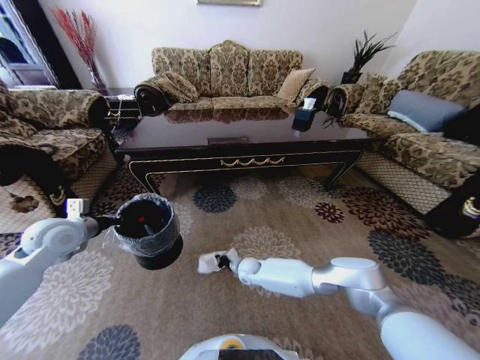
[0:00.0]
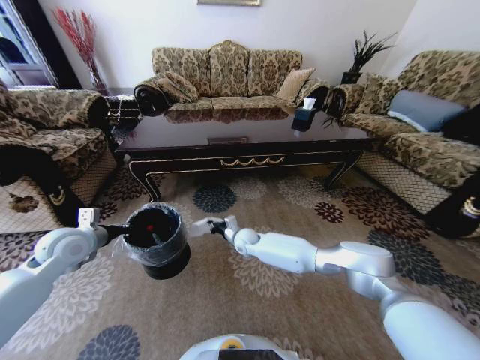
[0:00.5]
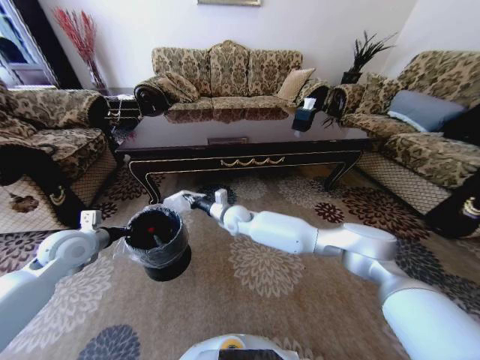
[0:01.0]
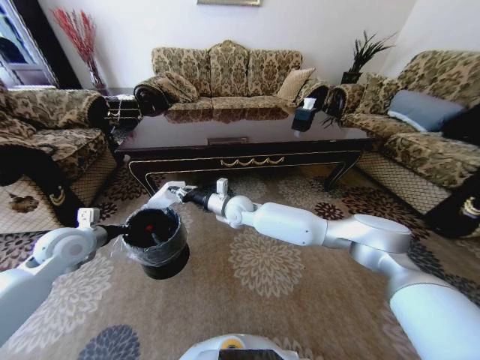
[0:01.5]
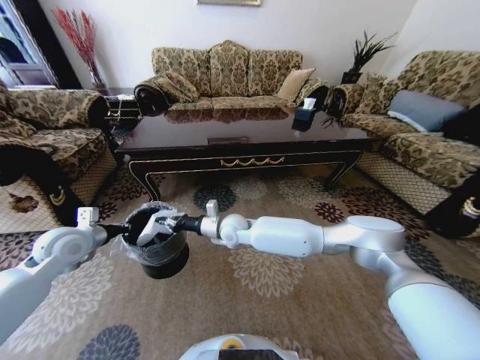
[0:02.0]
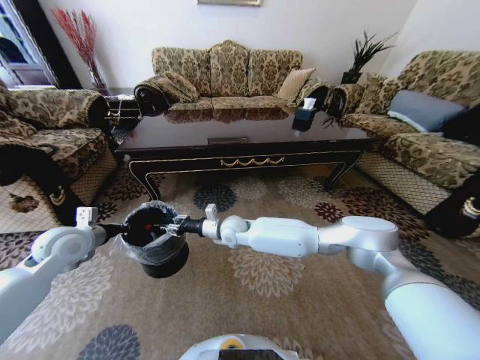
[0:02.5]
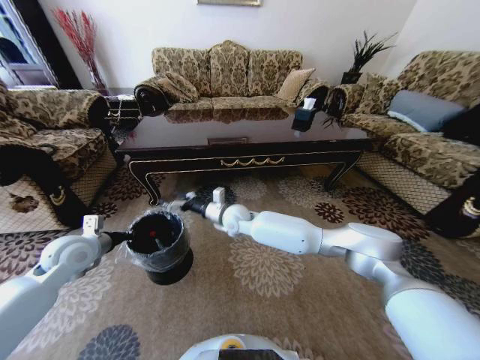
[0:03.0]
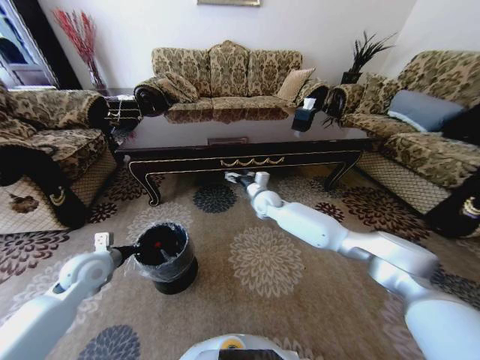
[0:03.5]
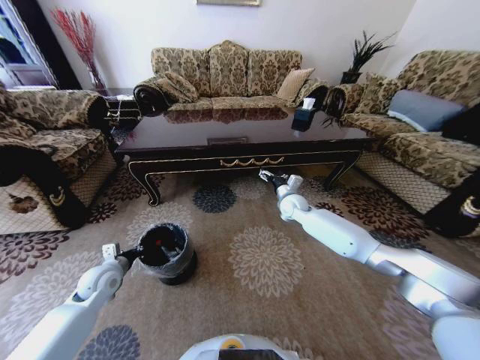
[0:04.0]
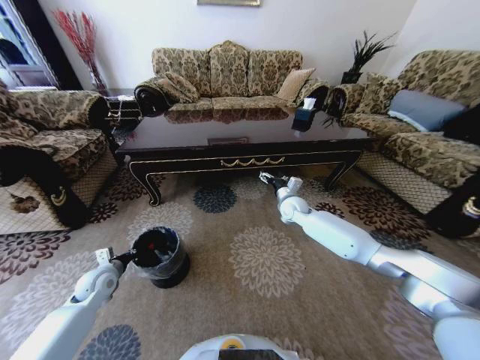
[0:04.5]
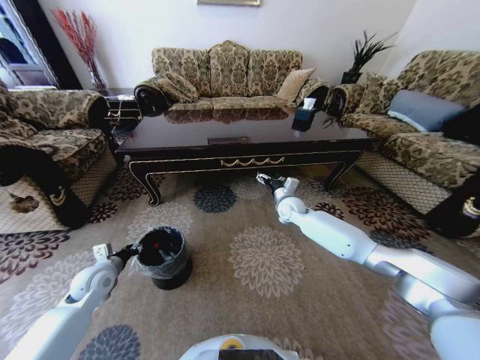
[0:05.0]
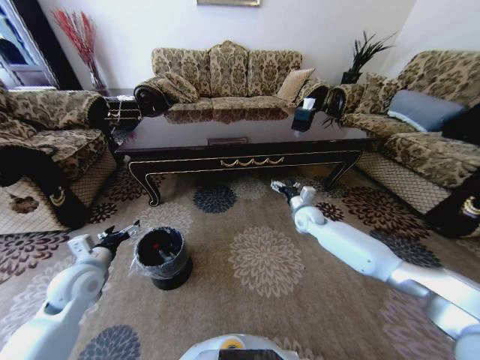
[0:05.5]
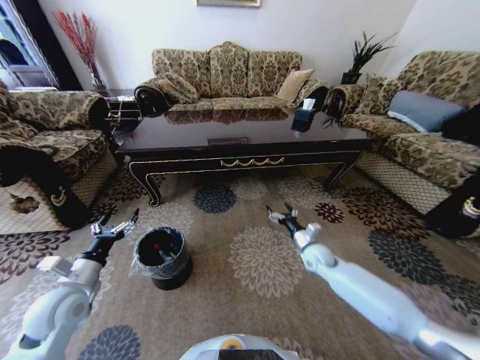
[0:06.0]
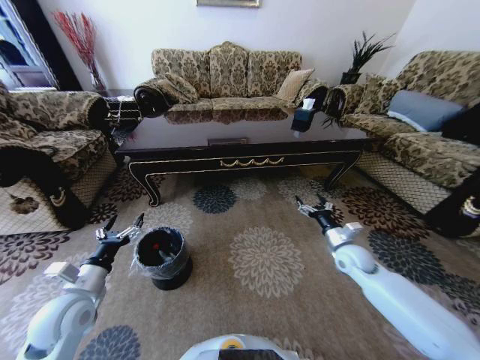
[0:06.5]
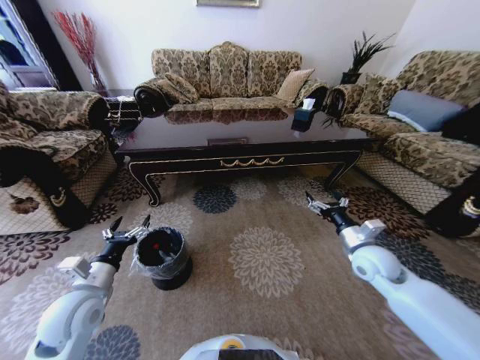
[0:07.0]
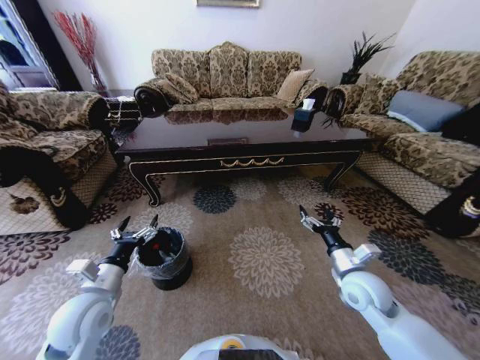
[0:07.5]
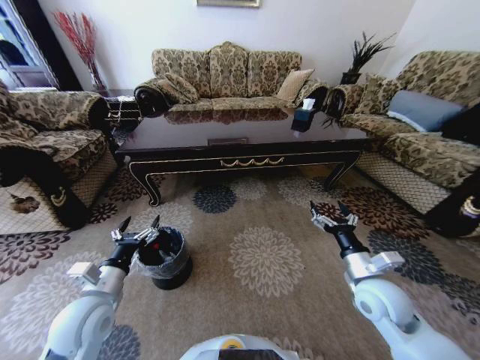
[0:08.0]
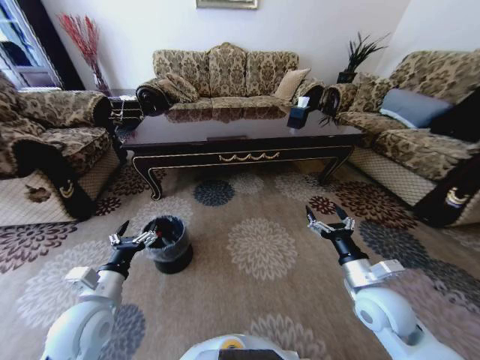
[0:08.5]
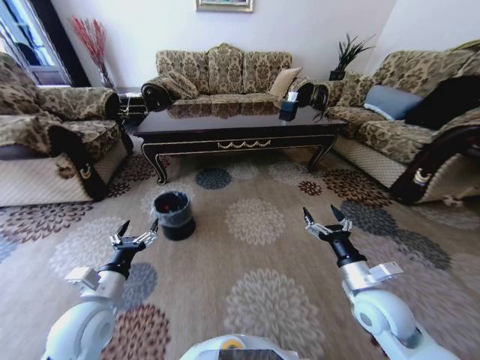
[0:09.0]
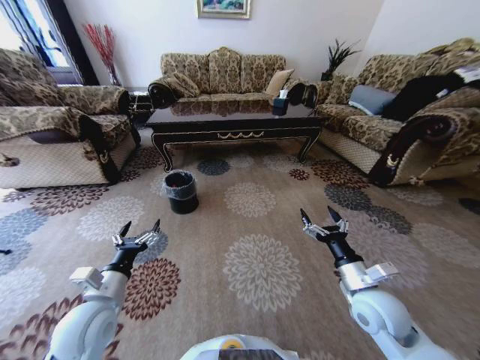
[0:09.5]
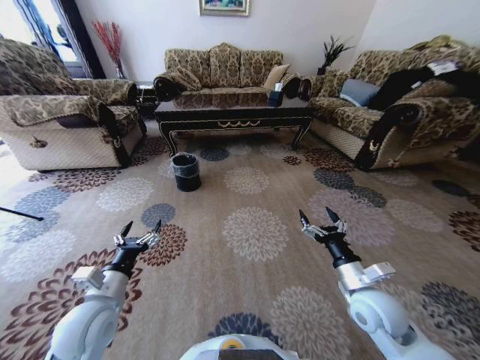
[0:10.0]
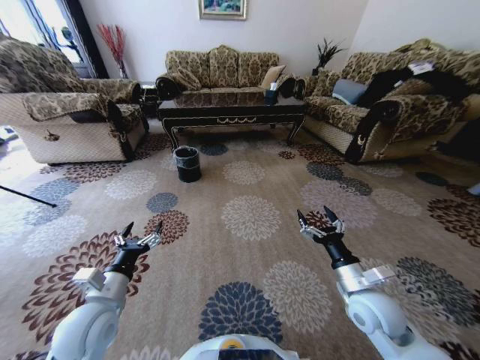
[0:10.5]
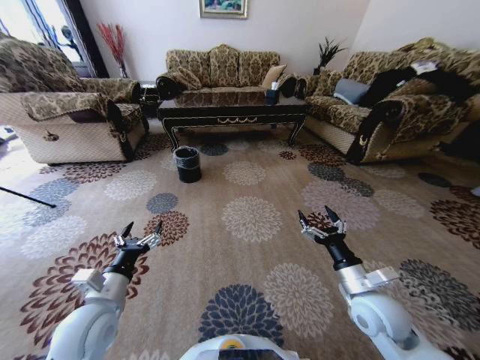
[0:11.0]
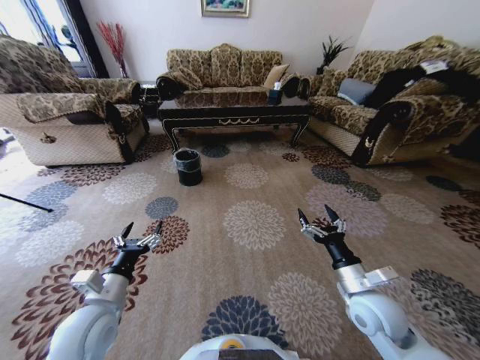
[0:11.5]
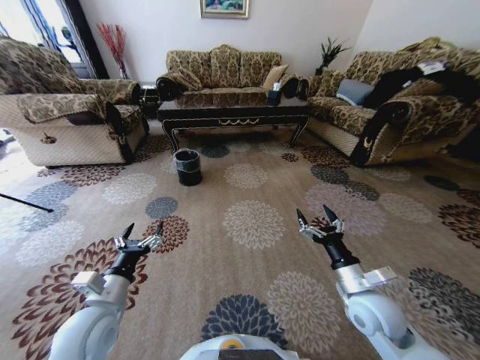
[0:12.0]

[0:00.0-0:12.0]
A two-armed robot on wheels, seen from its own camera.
Task of the whole recording: Move to the front of the table and pick up the trash from the floor, then place it into the trash bin.
0:00.0 to 0:02.0: The right gripper heads upward, covering roughly 25 cm.
0:02.0 to 0:04.0: The right gripper goes about 25 cm to the right and forward, and opens up; the left gripper goes about 15 cm downward.
0:04.0 to 0:06.0: The right gripper travels backward, downward and to the right by some 20 cm, while the left gripper goes roughly 10 cm backward and upward, and opens its fingers.
0:06.0 to 0:08.0: The right gripper is displaced backward and upward by some 20 cm, while the left gripper shifts approximately 10 cm to the right.

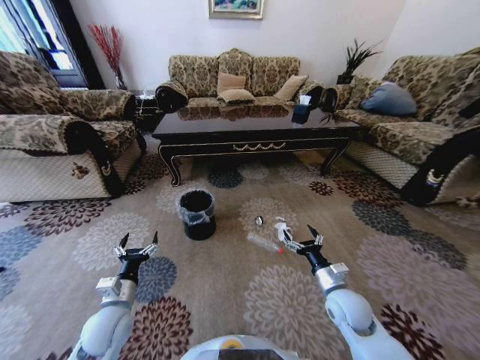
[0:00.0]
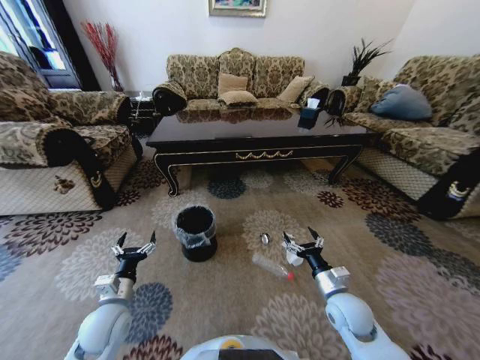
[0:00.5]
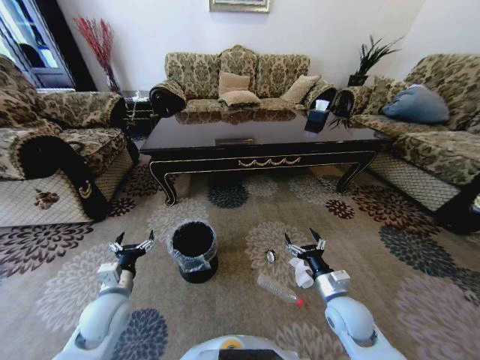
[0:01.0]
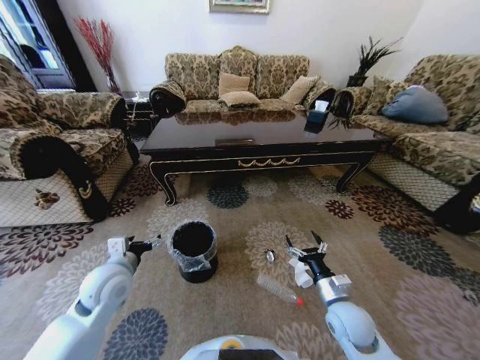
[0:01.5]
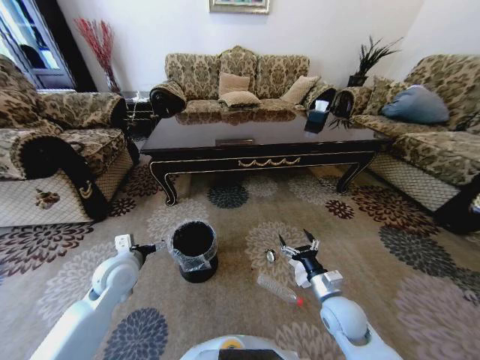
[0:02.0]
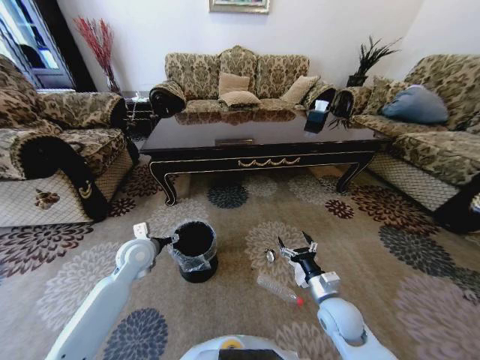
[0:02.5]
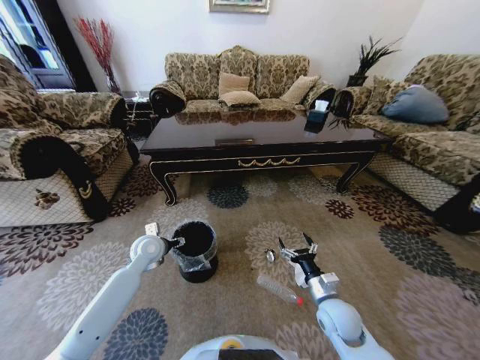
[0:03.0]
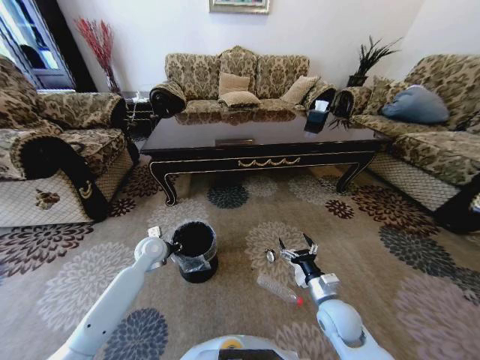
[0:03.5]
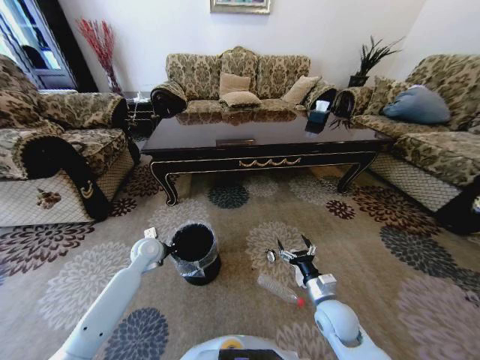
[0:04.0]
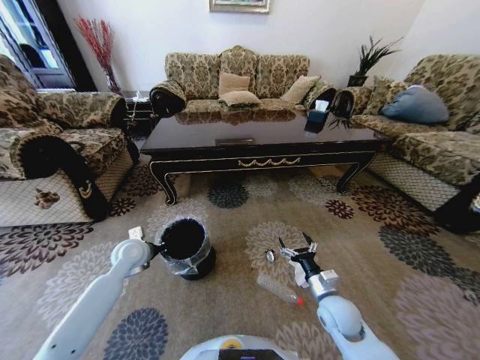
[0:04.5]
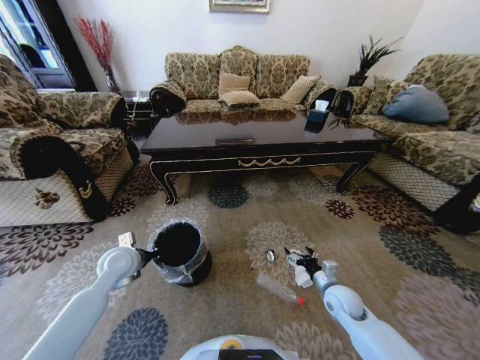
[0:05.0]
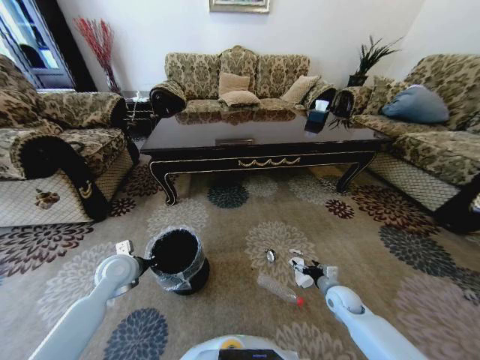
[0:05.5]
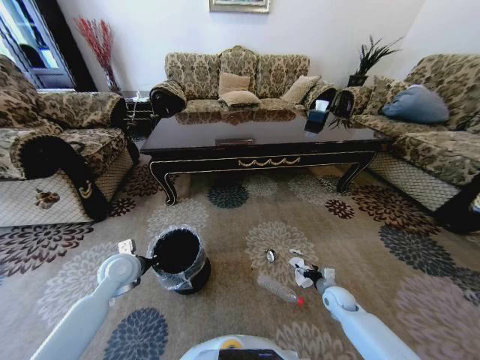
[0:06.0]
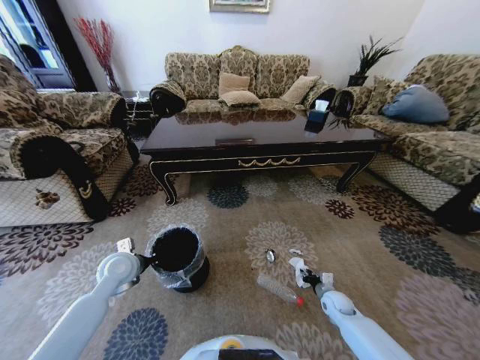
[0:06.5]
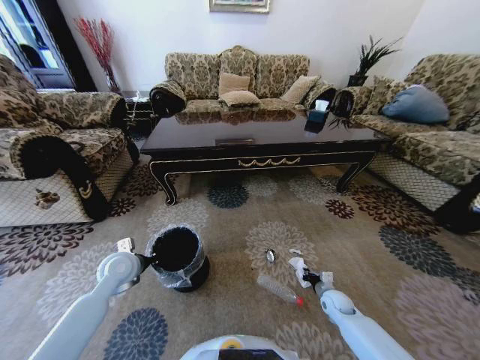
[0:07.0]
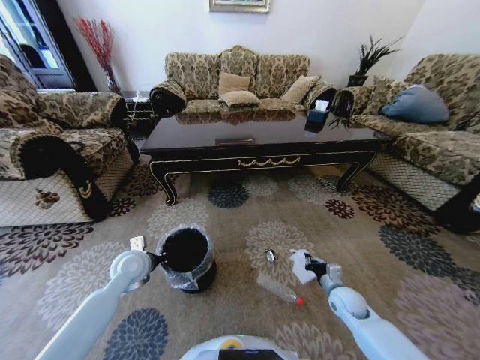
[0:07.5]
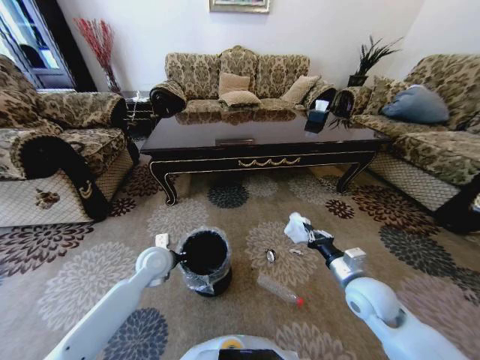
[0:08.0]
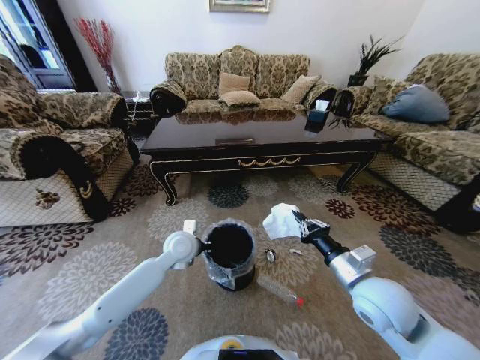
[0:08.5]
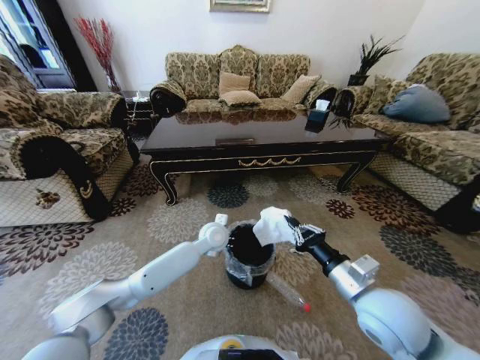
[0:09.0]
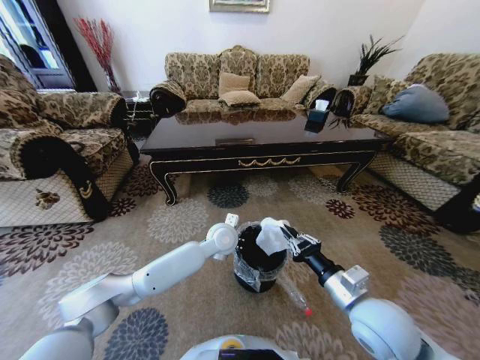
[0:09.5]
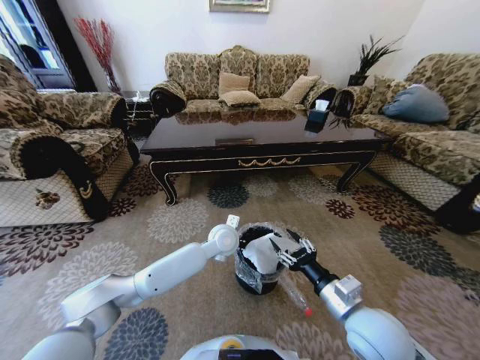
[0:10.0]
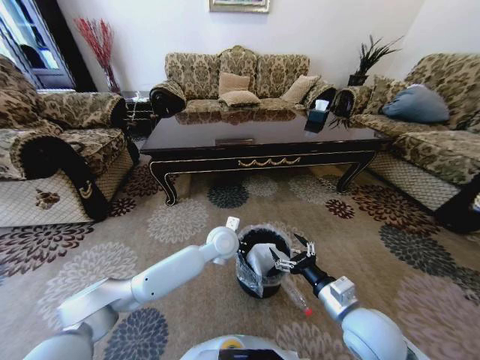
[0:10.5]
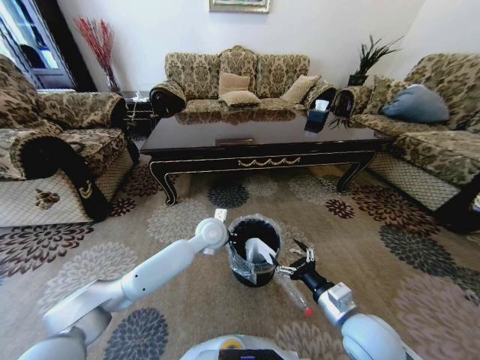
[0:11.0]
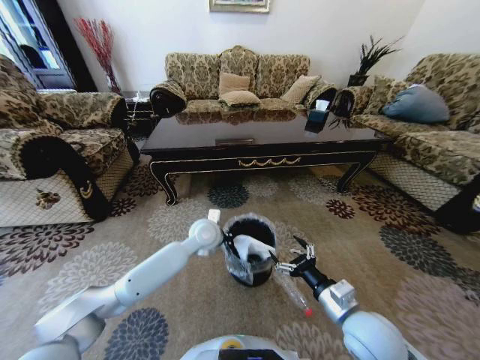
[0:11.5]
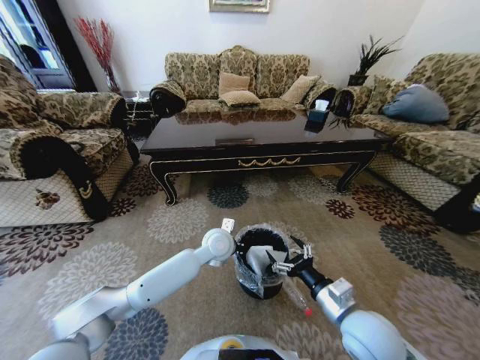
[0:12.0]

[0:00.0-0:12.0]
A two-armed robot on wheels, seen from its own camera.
Task of the whole recording: Move to the front of the table and pick up the trash from the floor, then place it into the trash bin.
0:00.0 to 0:02.0: The left gripper travels forward and upward by some 10 cm.
0:02.0 to 0:04.0: The left gripper heads forward and downward, covering about 10 cm, and closes.
0:04.0 to 0:06.0: The right gripper shifts about 20 cm downward, to the right and forward; the left gripper moves backward, about 10 cm.
0:06.0 to 0:08.0: The right gripper goes roughly 20 cm upward, and closes its fingers; the left gripper heads to the right, covering roughly 10 cm.
0:08.0 to 0:10.0: The left gripper heads to the right, covering some 20 cm; the right gripper is displaced backward and to the left by about 10 cm, and opens.
0:10.0 to 0:12.0: The right gripper opens.

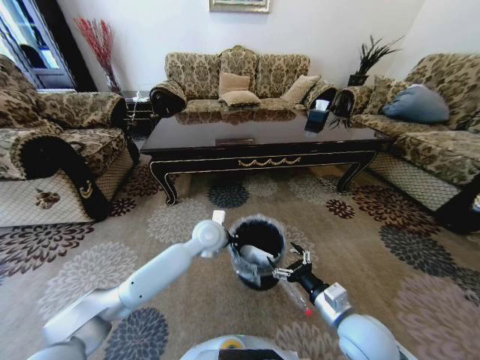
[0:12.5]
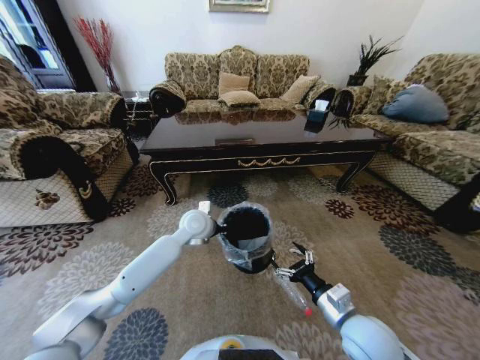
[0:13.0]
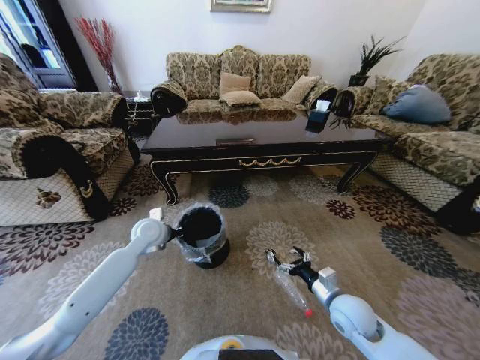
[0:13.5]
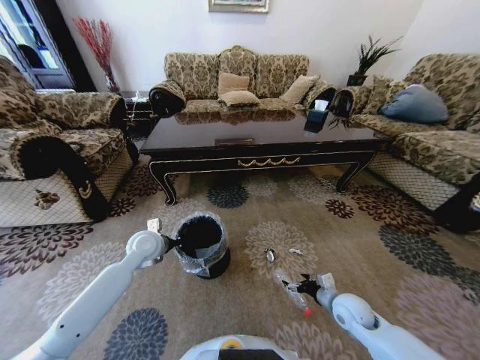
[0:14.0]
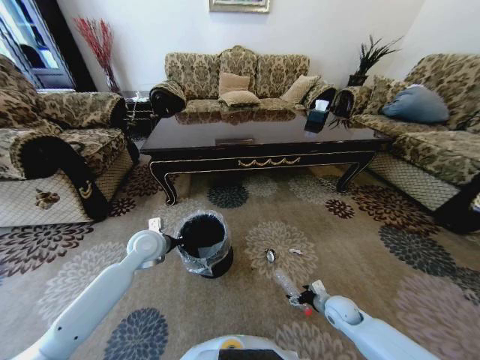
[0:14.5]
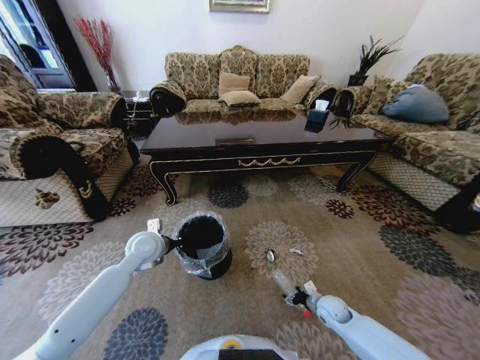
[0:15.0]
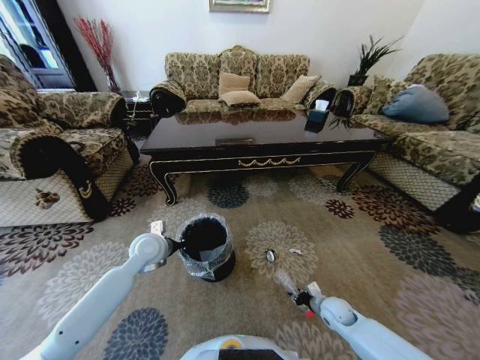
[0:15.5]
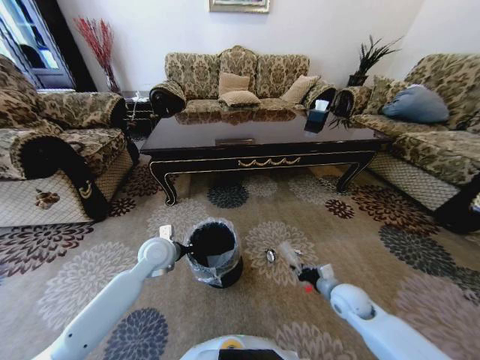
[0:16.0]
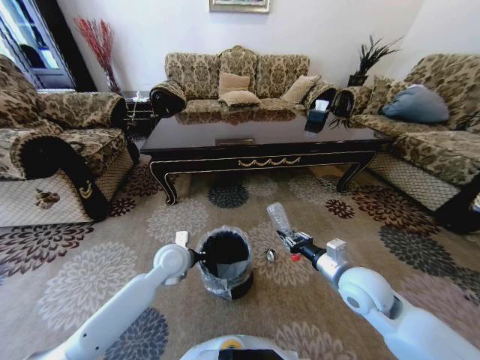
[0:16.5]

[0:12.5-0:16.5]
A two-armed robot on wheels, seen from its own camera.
Task of the whole recording: Move to the front of the table and pick up the trash from the floor, then place it into the trash bin.
0:12.5 to 0:14.5: The right gripper goes about 25 cm downward, to the right and forward; the left gripper moves to the left, approximately 20 cm.
0:14.5 to 0:16.5: The right gripper heads upward, covering about 25 cm, and closes, while the left gripper travels to the right by some 5 cm.
